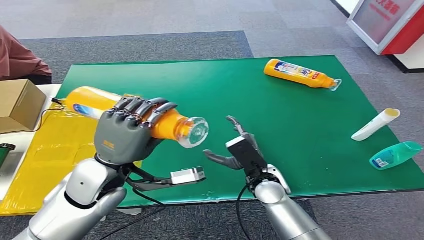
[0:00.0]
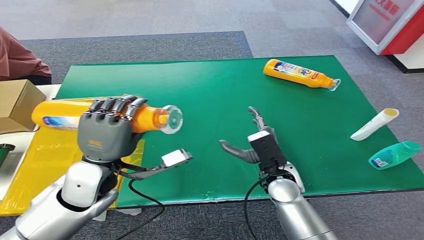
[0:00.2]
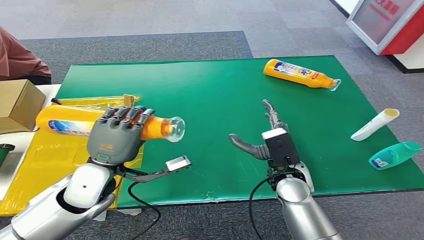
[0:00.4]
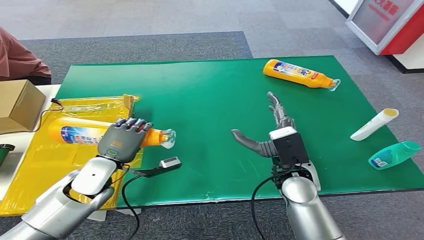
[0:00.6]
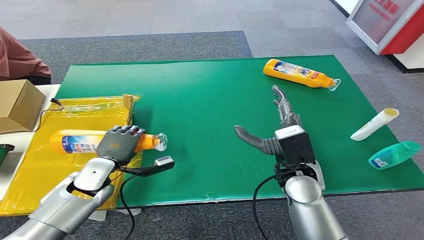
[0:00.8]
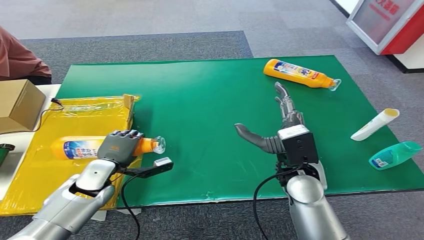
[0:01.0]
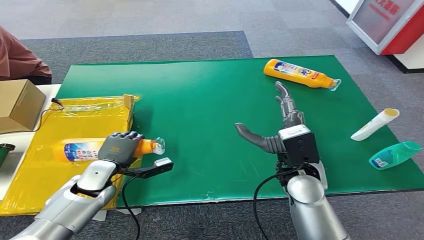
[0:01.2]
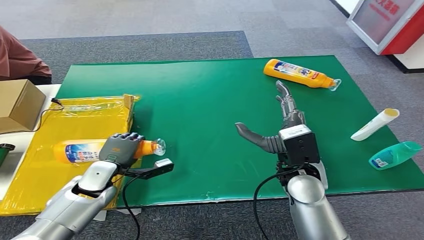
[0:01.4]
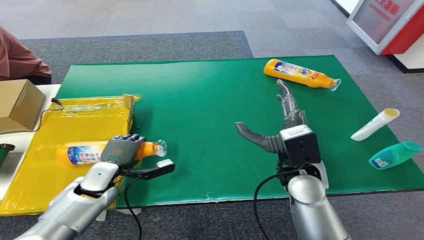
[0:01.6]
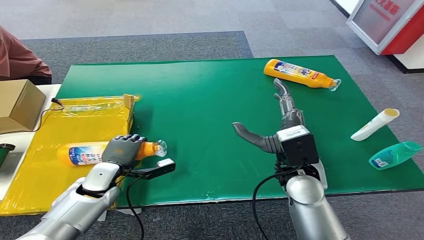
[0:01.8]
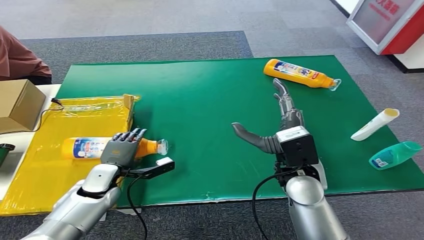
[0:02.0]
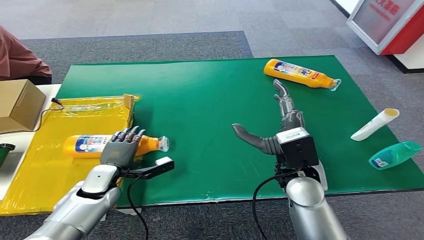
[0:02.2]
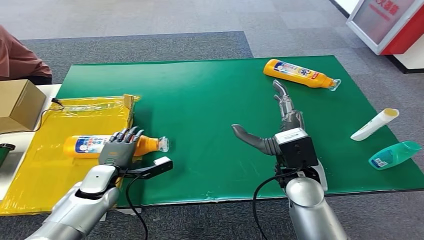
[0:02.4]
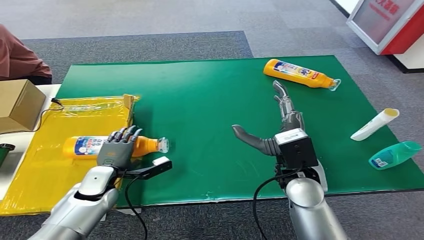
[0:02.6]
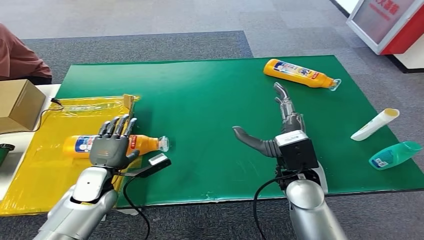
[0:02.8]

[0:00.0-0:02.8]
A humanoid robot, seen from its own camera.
Step, 0:00.0 to 0:02.8: Turn the bottle to the front side.
0:00.0 to 0:01.4: The left hand goes some 20 cm downward and to the left. The right hand is displaced upward by approximately 10 cm.
0:01.4 to 0:02.8: The hands move only a little.
